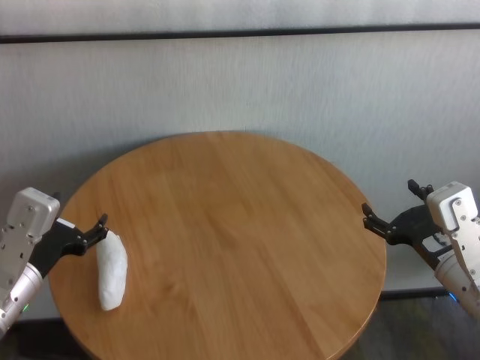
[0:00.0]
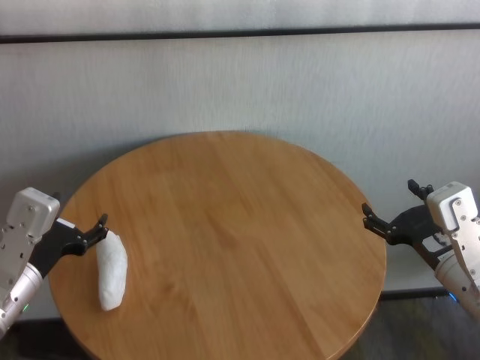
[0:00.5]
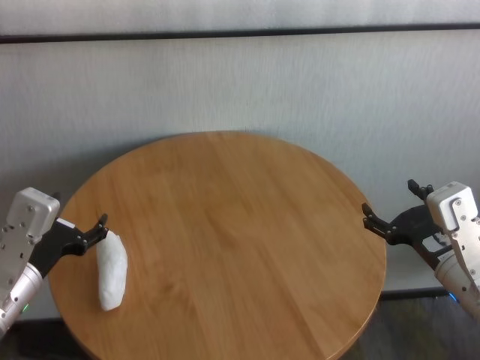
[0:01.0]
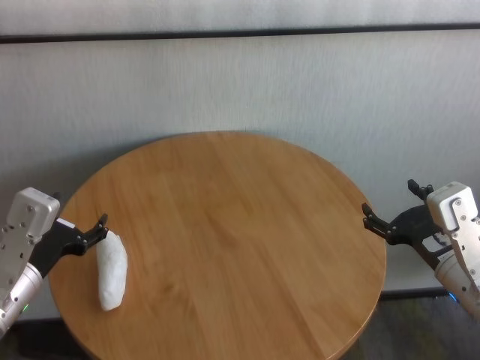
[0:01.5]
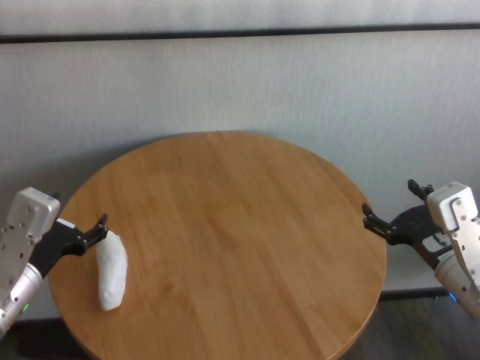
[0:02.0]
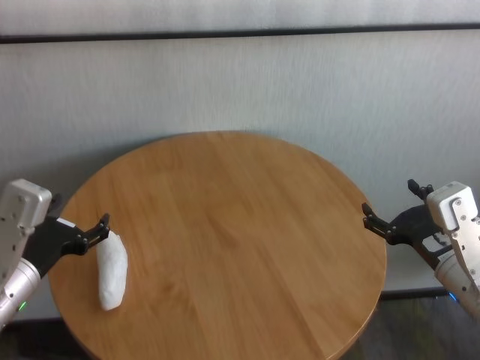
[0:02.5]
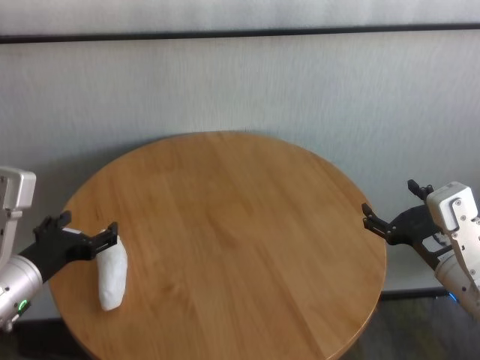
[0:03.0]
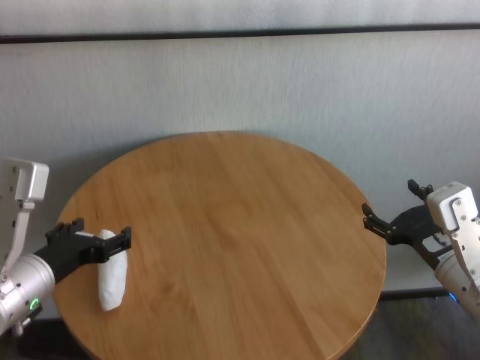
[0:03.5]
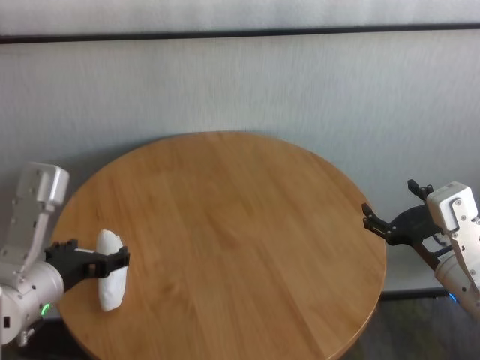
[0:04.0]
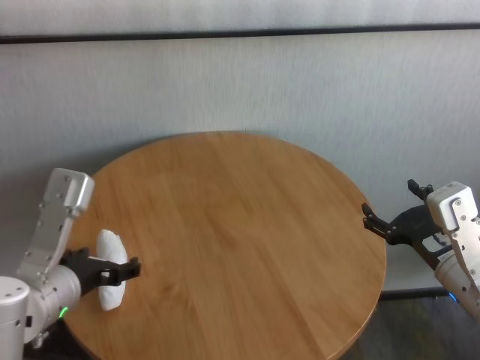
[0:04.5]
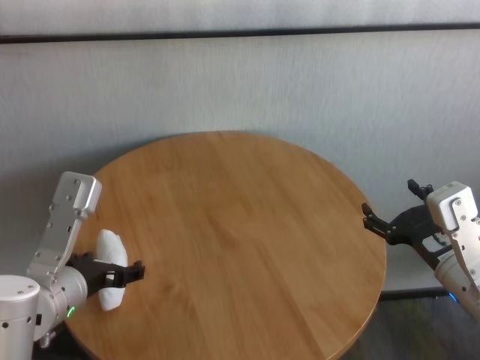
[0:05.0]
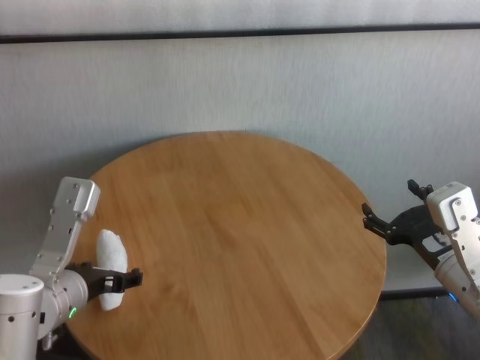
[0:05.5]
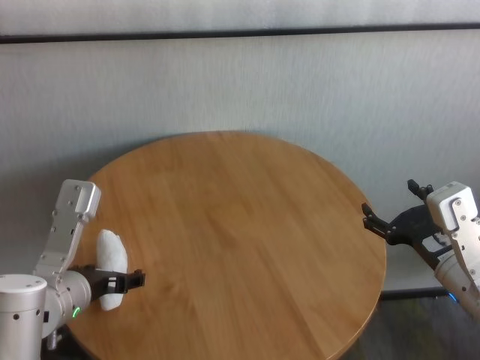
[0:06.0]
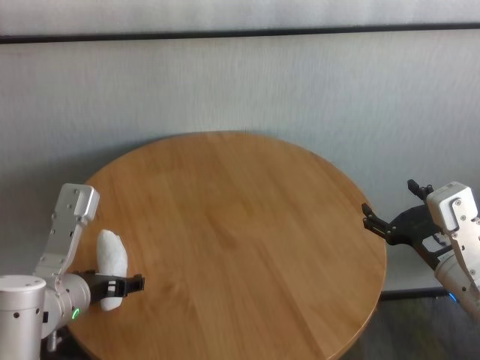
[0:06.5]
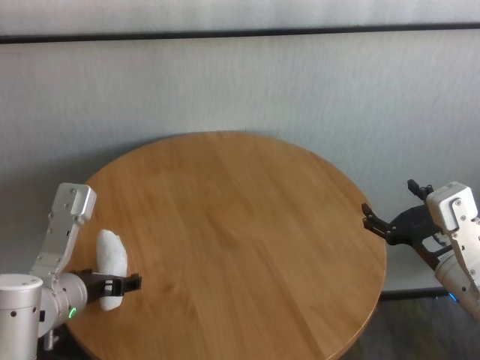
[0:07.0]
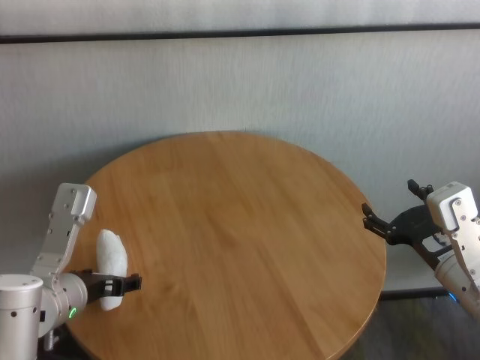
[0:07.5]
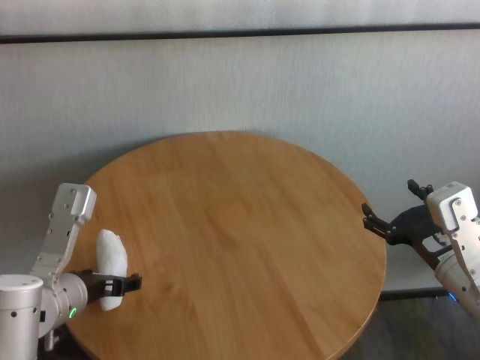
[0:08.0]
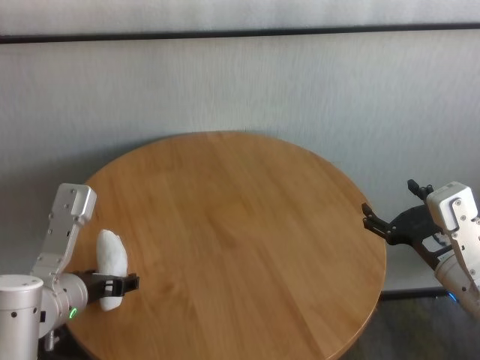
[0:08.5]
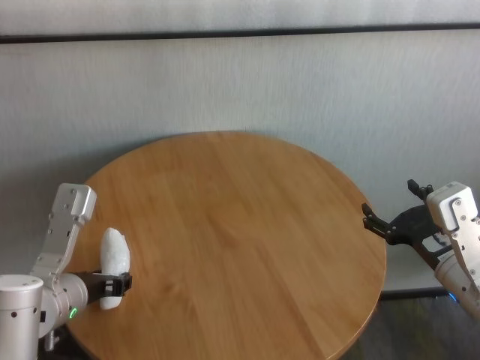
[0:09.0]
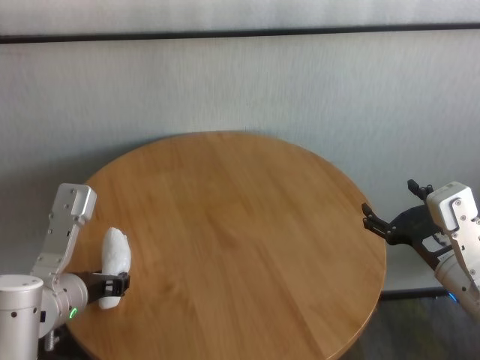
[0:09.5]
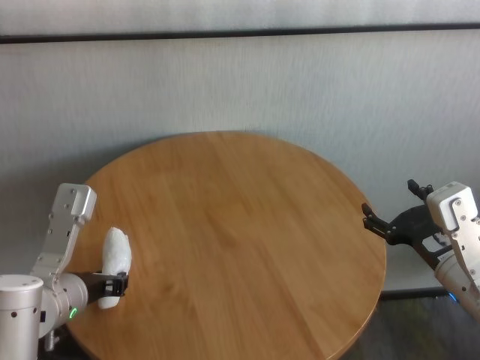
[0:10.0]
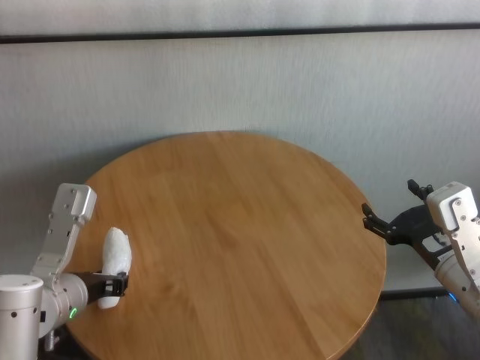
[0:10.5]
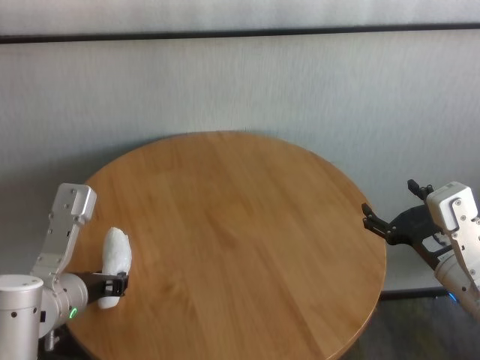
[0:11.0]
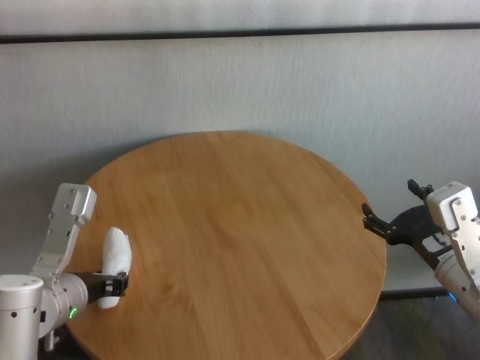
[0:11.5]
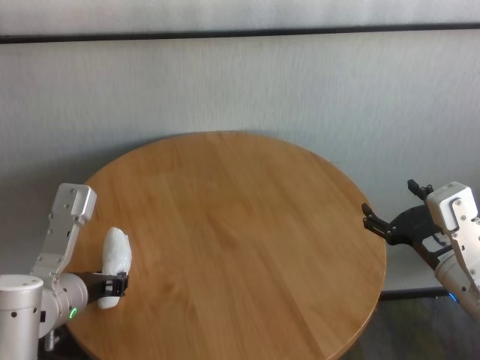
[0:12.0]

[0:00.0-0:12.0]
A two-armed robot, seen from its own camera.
Task of the whole recording: One hand took the sandbag from the other hand and placed it on the table.
Step, 0:00.0 to 0:09.5: Grasp the paper ball with left gripper.

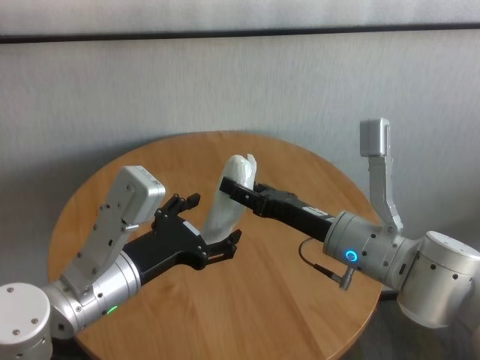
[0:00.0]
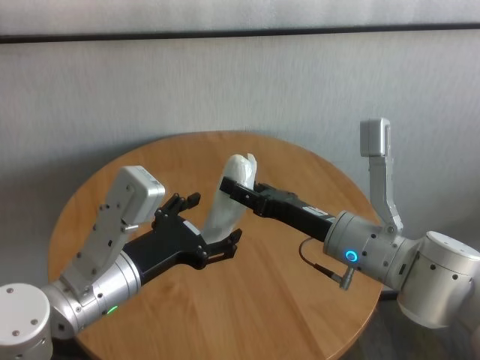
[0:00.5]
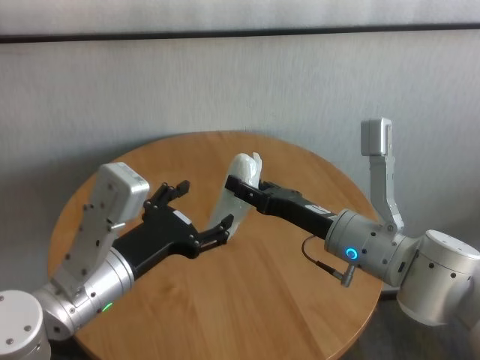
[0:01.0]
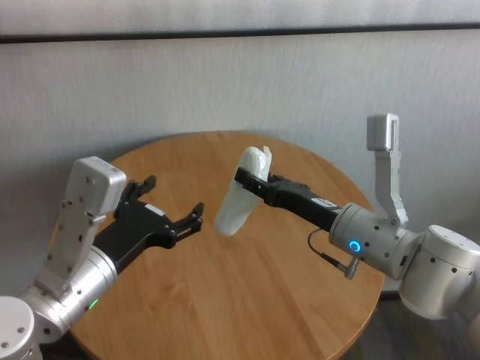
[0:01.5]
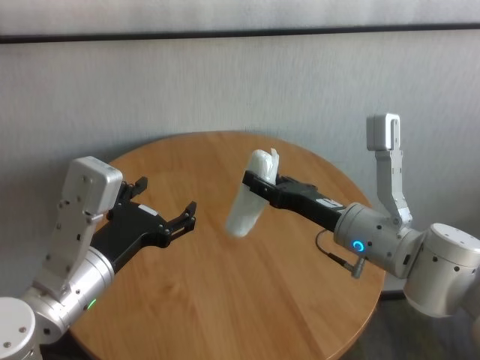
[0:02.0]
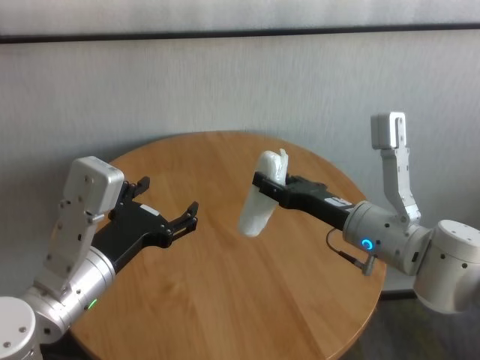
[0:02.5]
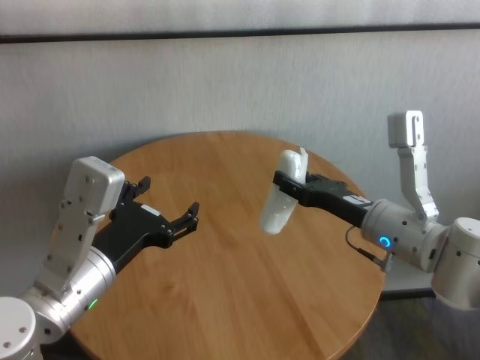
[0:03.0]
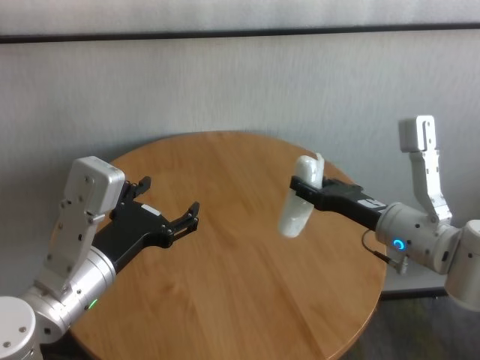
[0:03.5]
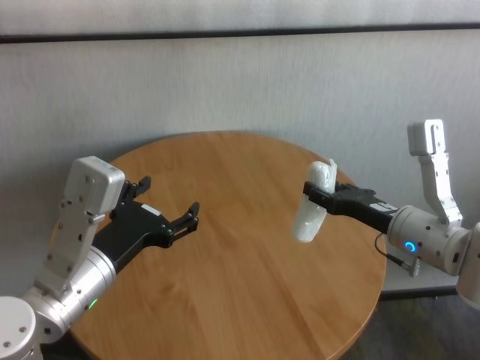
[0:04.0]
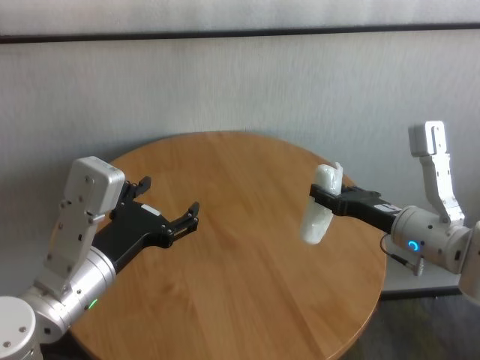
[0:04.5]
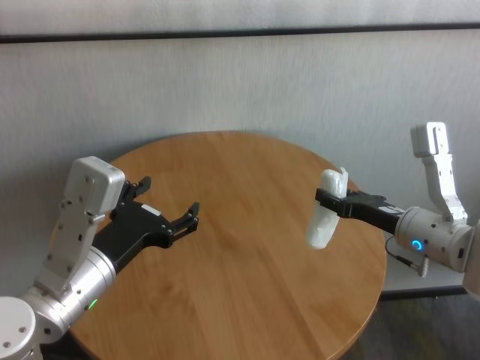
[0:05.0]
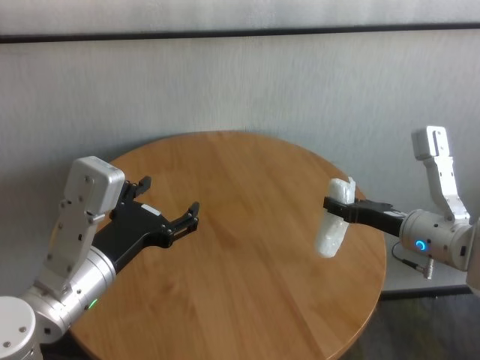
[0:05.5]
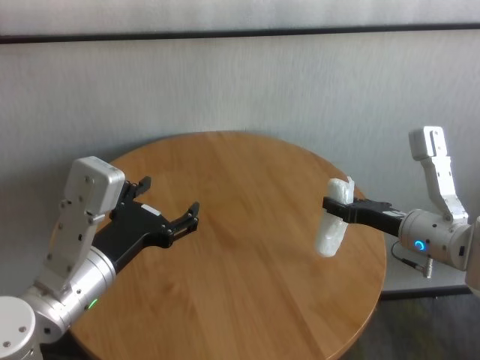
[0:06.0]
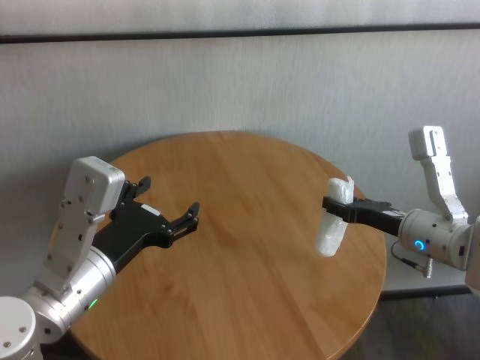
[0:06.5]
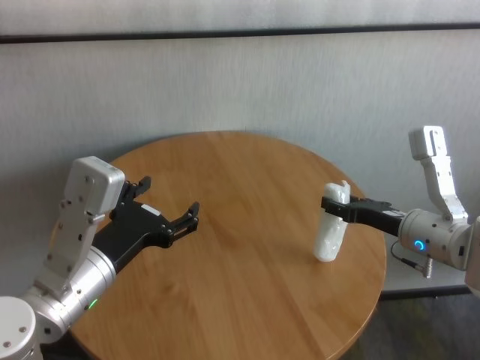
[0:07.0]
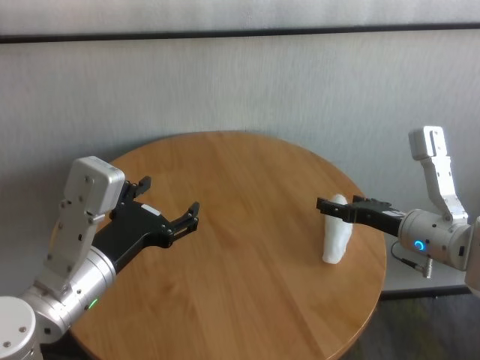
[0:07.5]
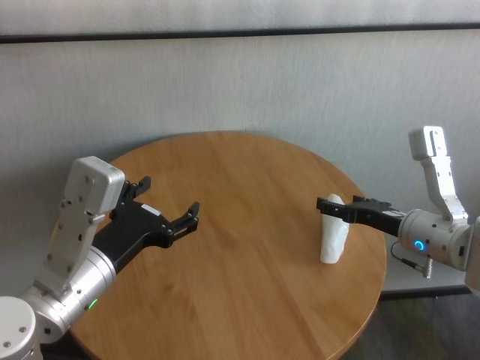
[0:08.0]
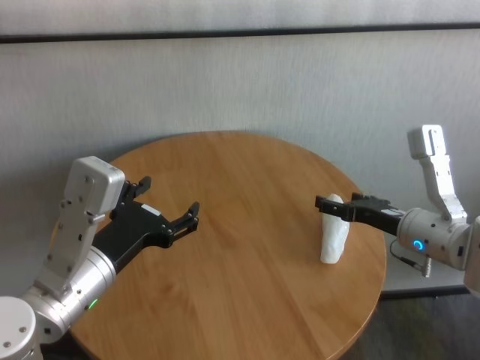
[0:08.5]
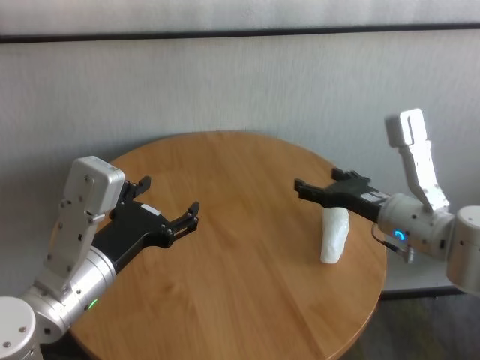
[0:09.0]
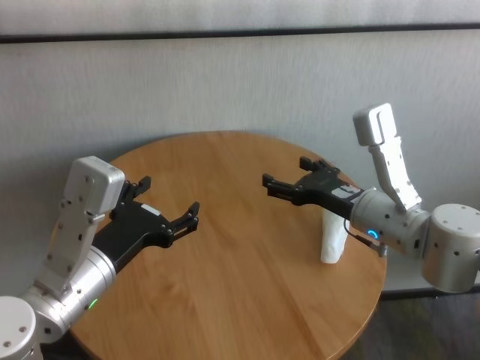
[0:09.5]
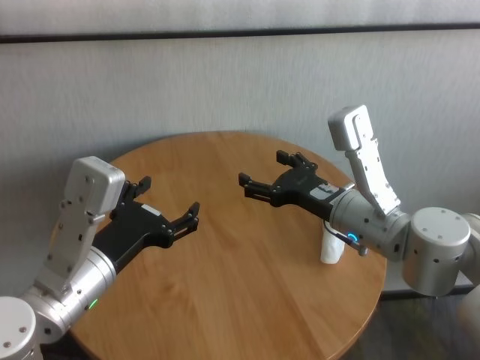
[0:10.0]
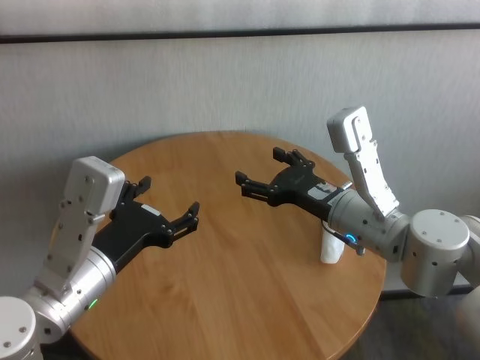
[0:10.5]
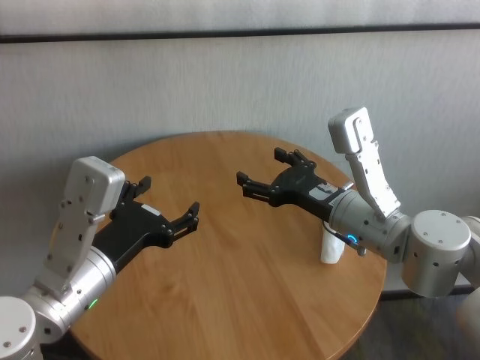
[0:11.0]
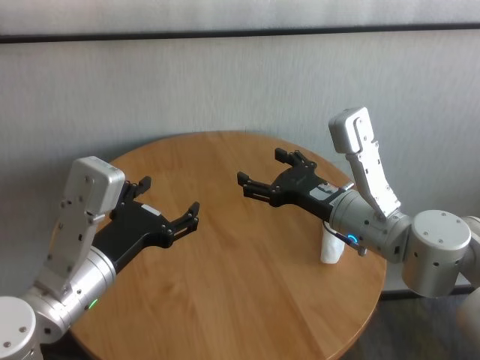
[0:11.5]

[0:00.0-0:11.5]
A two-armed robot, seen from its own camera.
Task of the whole recording: One hand took the sandbag from the other hand and placed it on the table.
Step, 0:00.5 to 0:07.0: Place the paper ball on the table with right gripper.
